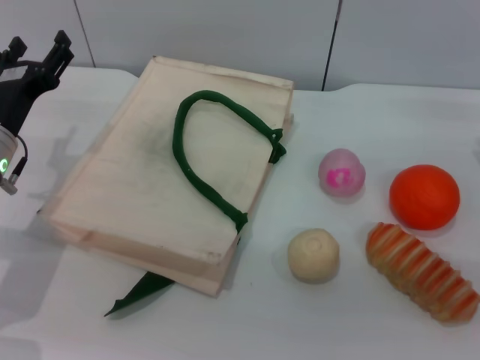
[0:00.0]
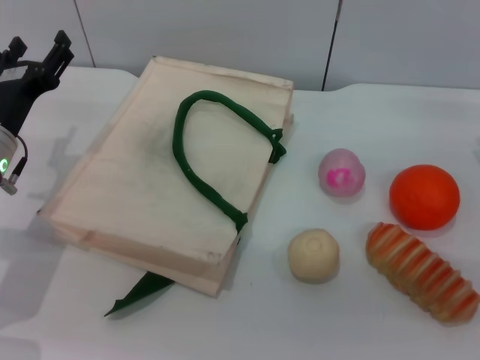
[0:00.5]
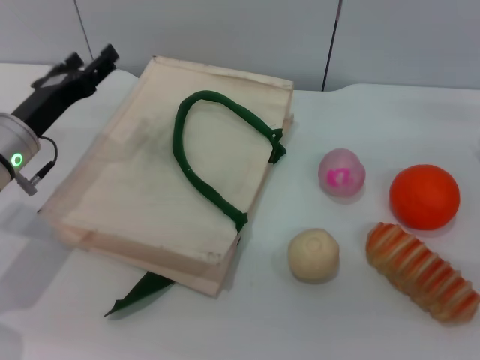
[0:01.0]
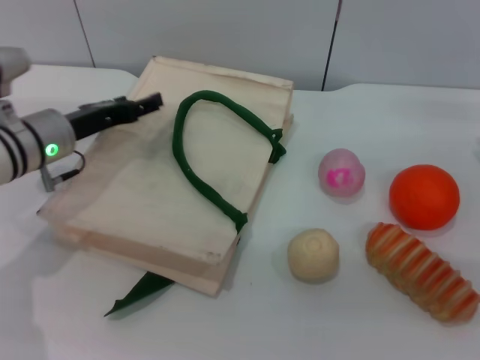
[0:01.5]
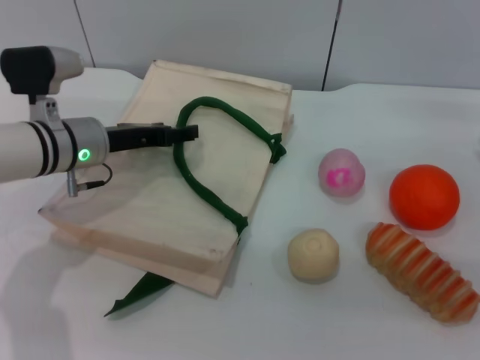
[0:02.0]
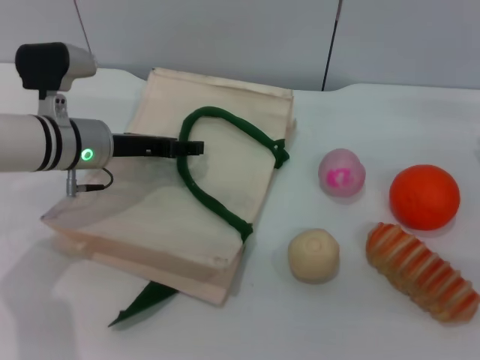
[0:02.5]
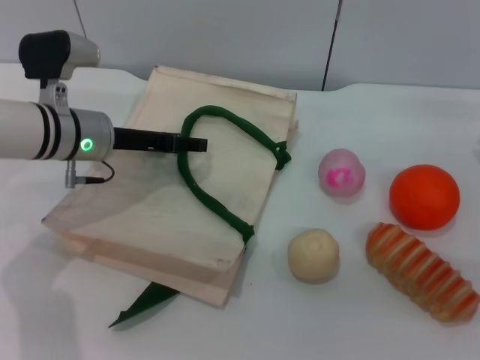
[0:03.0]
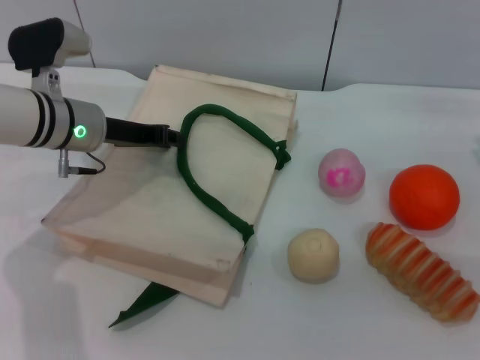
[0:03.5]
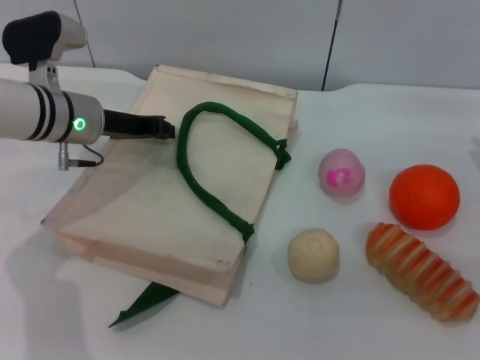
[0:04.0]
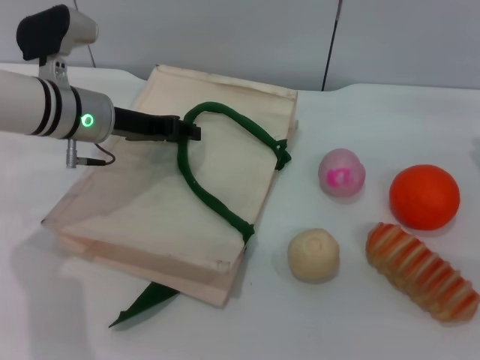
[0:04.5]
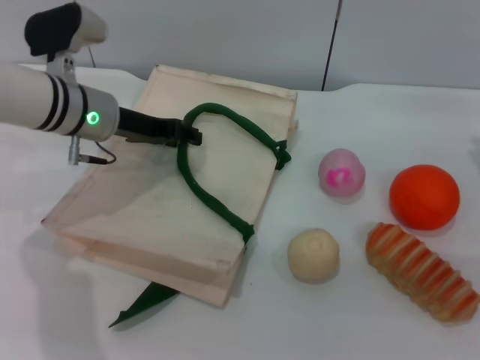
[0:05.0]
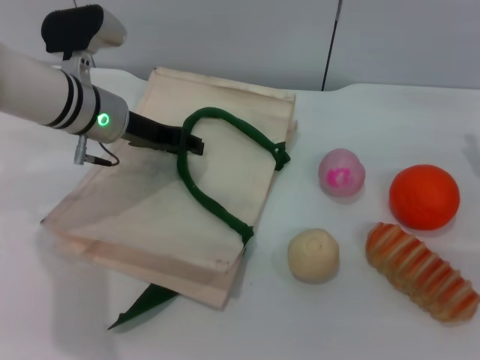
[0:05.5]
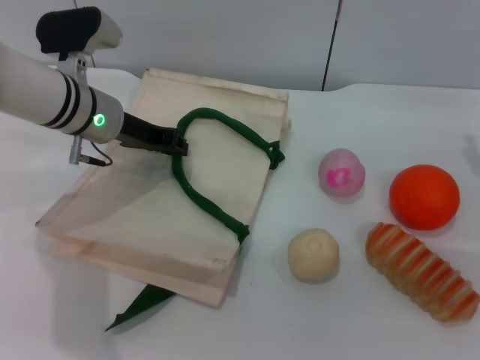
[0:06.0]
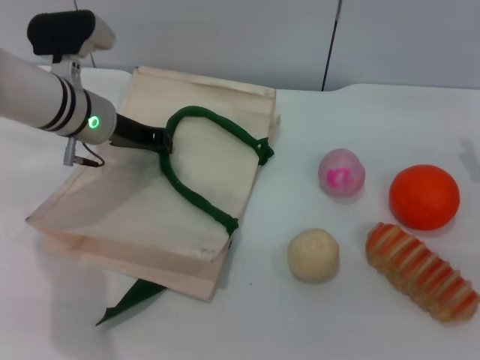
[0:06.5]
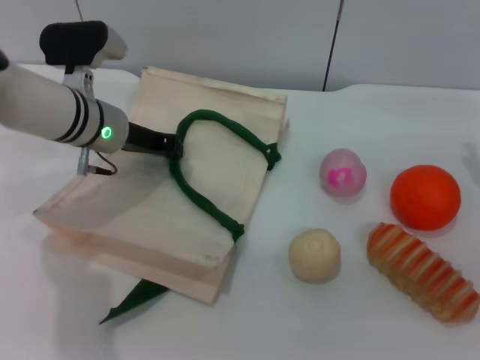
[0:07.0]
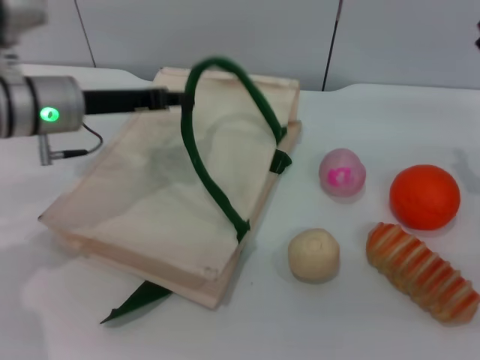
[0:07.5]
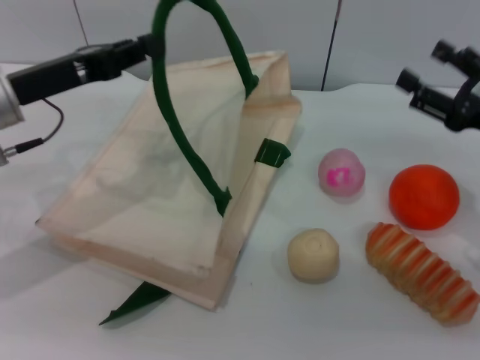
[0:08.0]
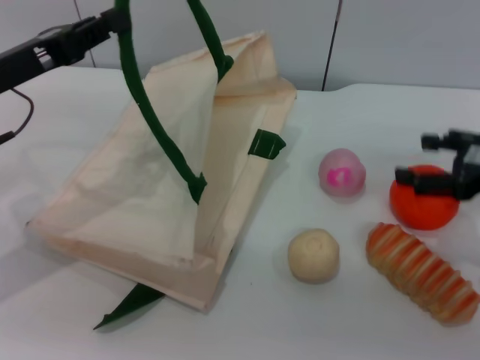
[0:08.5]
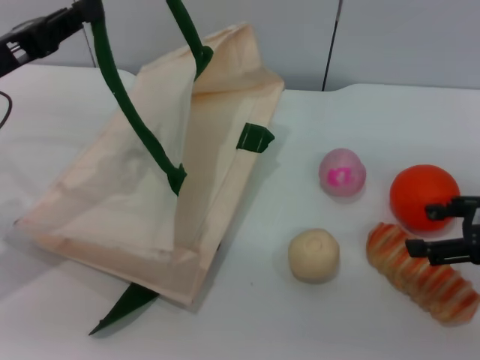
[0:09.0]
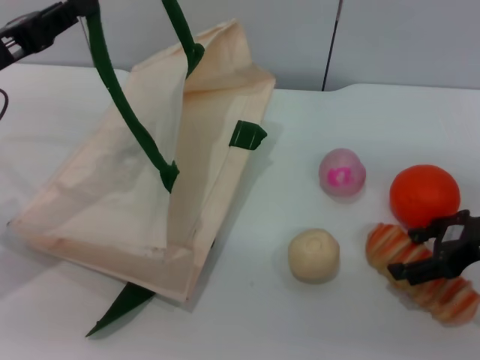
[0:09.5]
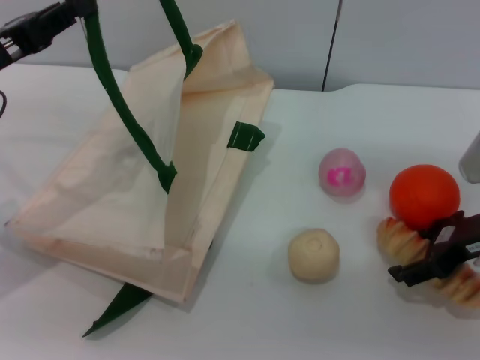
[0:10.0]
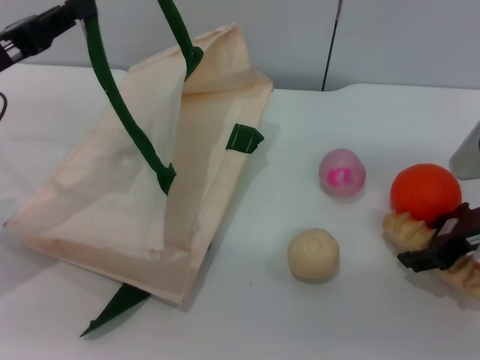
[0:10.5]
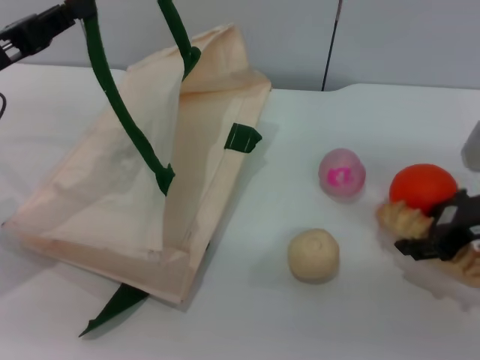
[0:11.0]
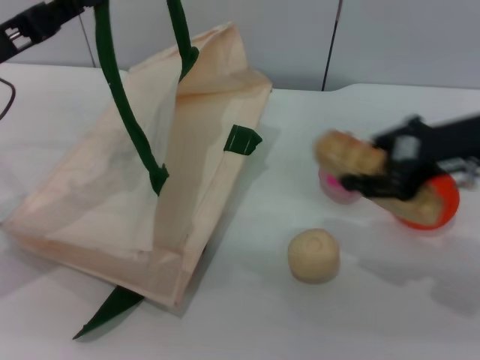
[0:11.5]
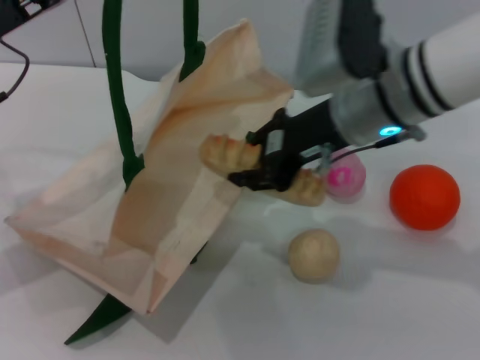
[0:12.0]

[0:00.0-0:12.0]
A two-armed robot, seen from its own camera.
Task of the whole recording: pick up the bread and egg yolk pastry from the table and place it in the white handbag.
Step, 0:00.0 to 0:07.5: Lift the woven bag with the left gripper to open it.
Step, 0:08.0 to 0:11.0: Pick up the bread with the right gripper.
0:00.0 to 0:02.0: The left gripper heads to the right and forward, covering about 10 cm.
0:02.0 to 0:04.0: The left gripper closes its fingers.
0:04.0 to 0:06.0: The grippers move only a little.
0:06.0 to 0:08.0: The left gripper is displaced backward and to the left by some 10 cm, and closes up.
0:10.0 to 0:12.0: The right gripper moves to the left and upward, some 15 cm, and closes up.

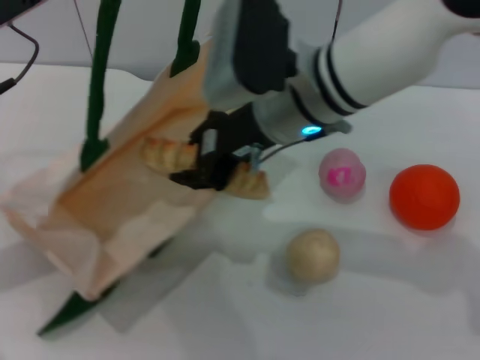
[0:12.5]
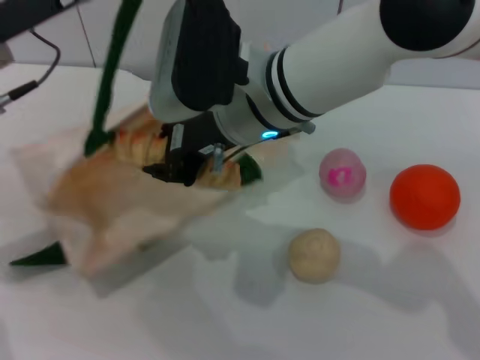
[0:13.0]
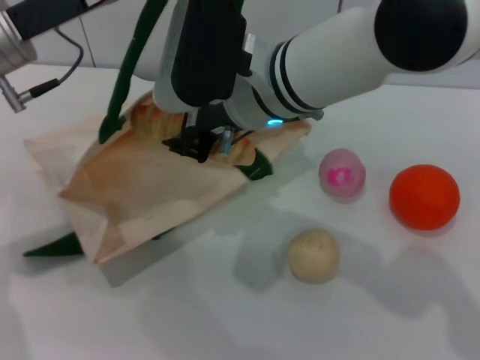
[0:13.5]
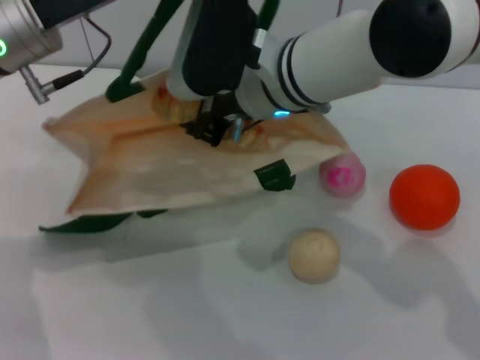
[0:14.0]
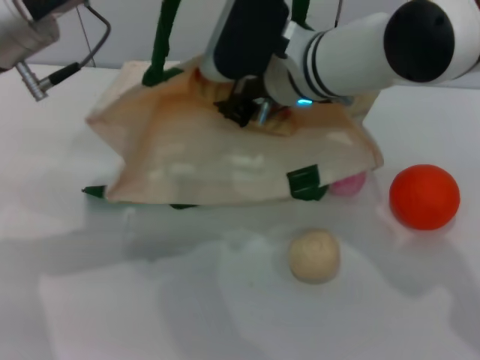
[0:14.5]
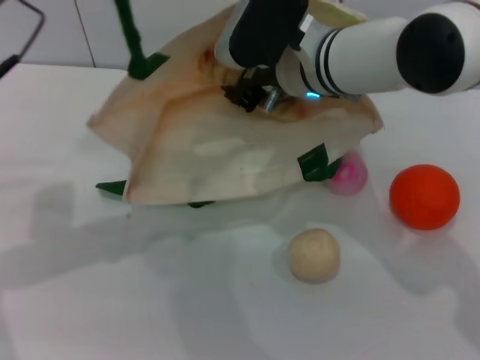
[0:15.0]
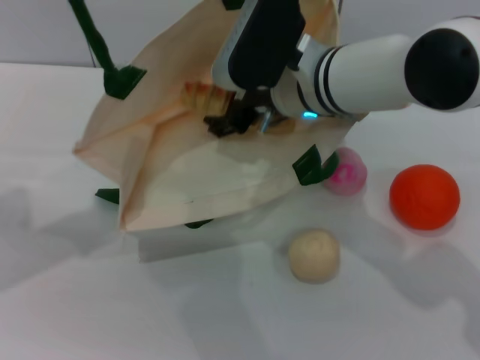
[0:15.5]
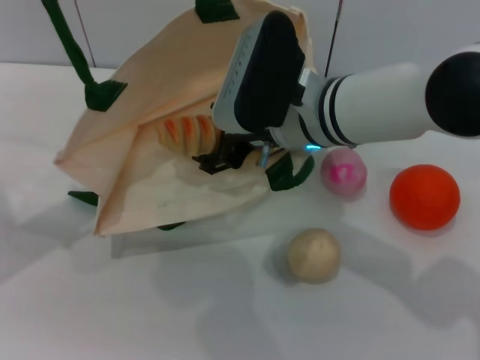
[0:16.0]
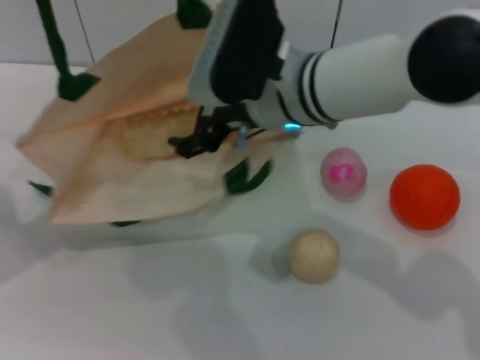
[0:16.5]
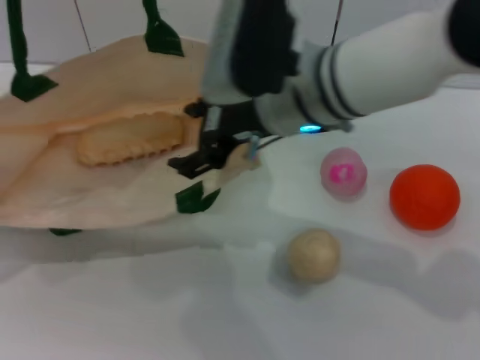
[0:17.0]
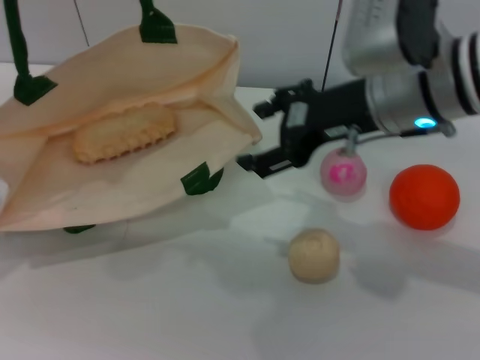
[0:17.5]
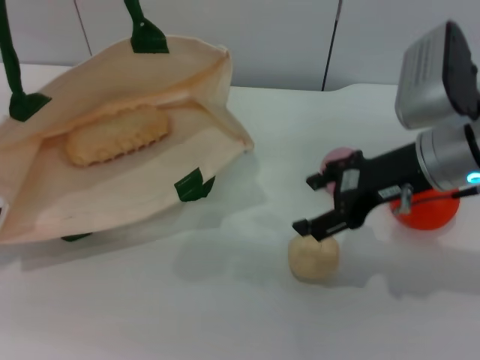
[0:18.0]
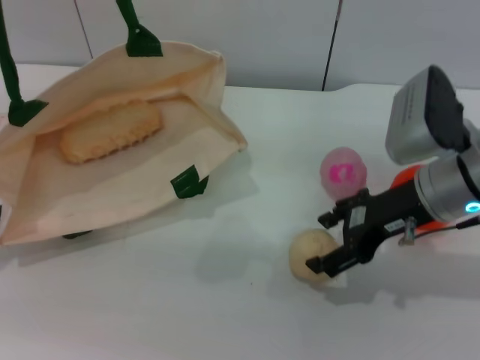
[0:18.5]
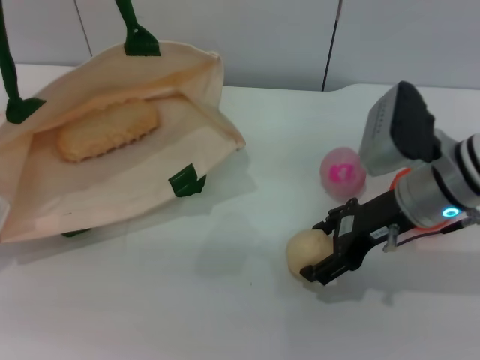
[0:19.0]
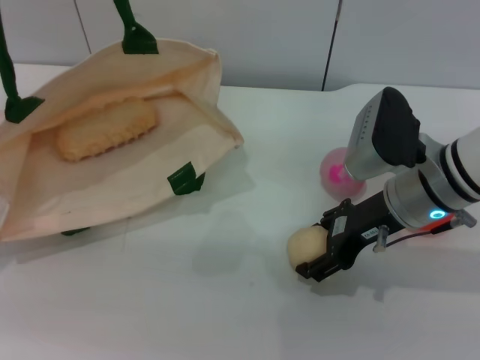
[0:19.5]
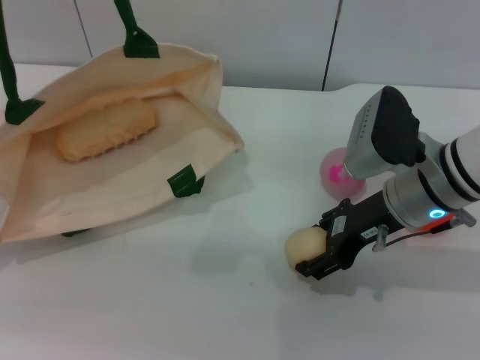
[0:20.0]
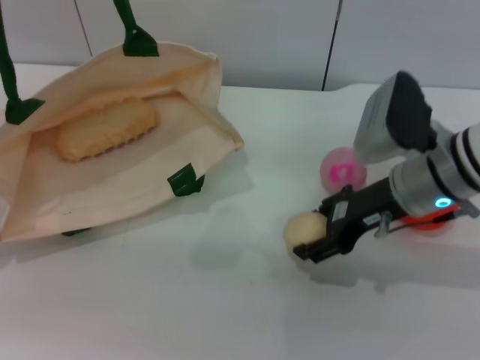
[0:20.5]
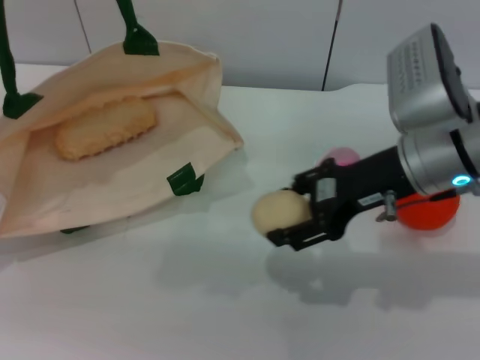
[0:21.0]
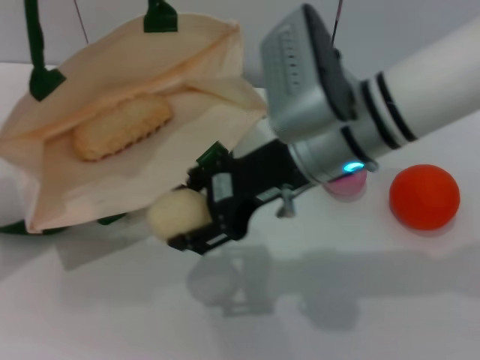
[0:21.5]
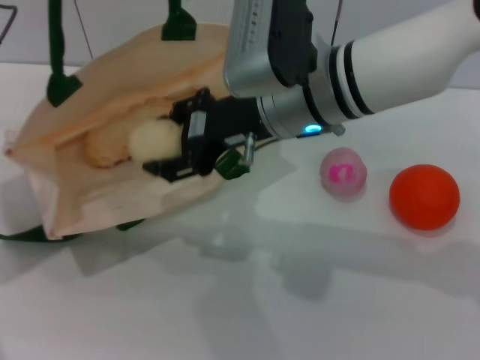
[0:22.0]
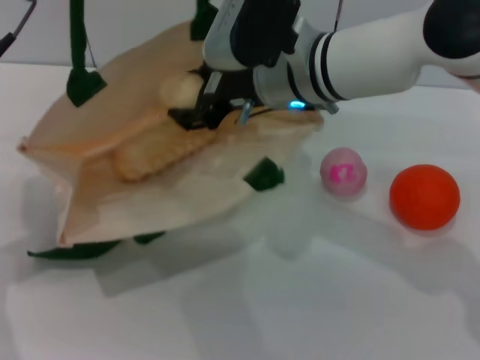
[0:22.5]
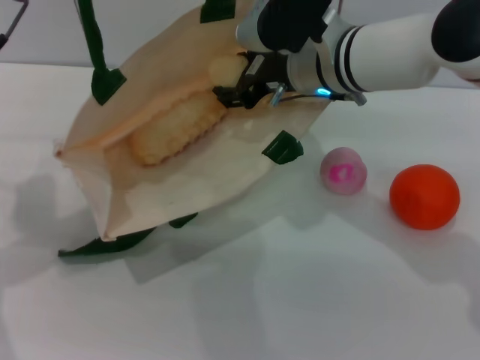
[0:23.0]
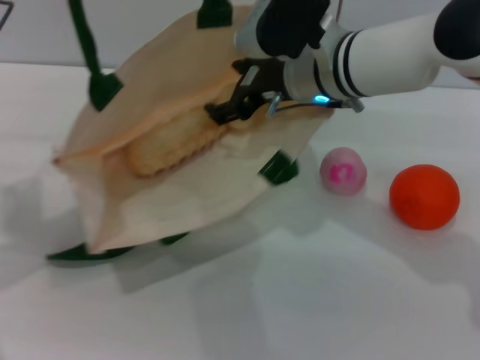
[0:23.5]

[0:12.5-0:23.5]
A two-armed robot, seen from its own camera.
Task of the whole recording: pick up the bread and egg yolk pastry from the table and place it in the white handbag.
Step, 0:12.5 to 0:17.0: Place the bread into the woven bag with the right gripper.
Step, 0:17.5 to 0:20.5: Pick up the egg yolk pastry with the right gripper.
0:12.5 to 0:14.5: The left gripper shifts some 5 cm to the right. Meanwhile the right gripper shifts by roughly 5 cm.
0:14.5 to 0:16.0: The left gripper shifts approximately 10 cm to the left. Meanwhile the right gripper opens.
0:16.0 to 0:18.0: The right gripper shifts about 15 cm to the right.
0:18.0 to 0:20.0: The right gripper travels downward by about 5 cm.
0:20.0 to 0:21.5: The right gripper goes about 10 cm to the left and upward.
0:21.5 to 0:23.5: The right gripper moves forward, roughly 10 cm.

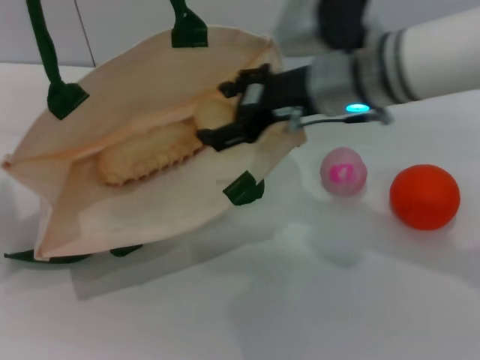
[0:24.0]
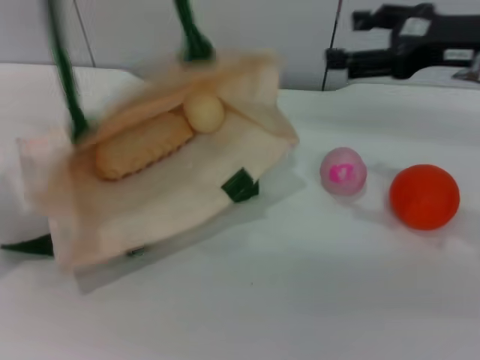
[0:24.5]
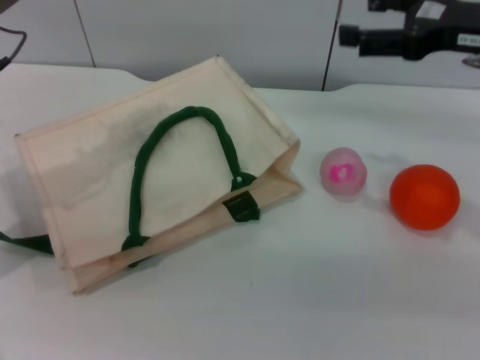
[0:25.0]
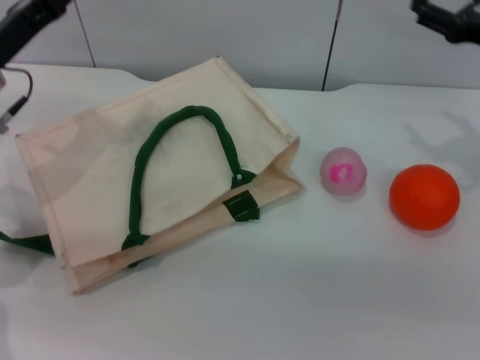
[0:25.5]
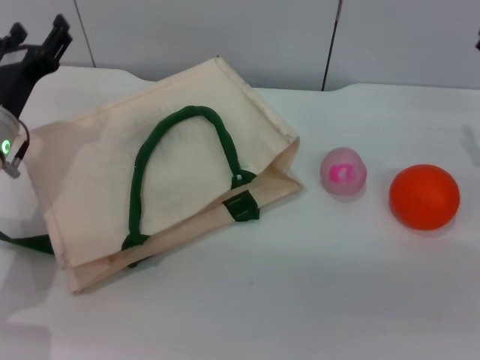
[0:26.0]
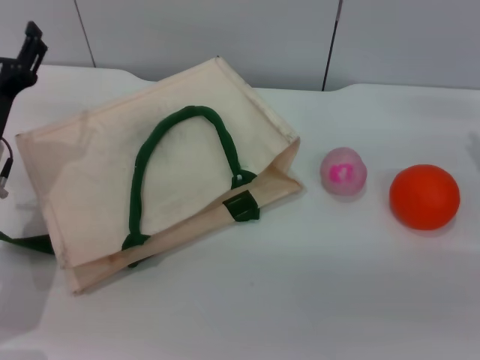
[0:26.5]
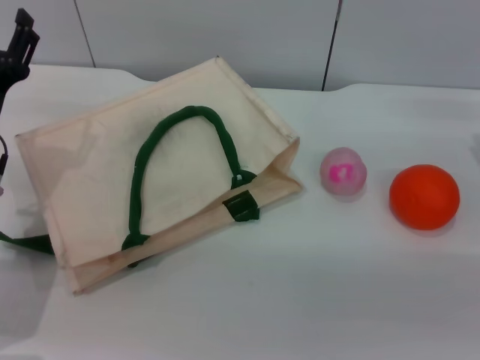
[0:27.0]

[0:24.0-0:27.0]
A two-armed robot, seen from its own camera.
Task of the whole recording: pick up the bread and egg yolk pastry from the table and place it in the white handbag.
Step, 0:24.5 to 0:25.0: Lower the woven bag with the left gripper to close it.
0:24.0 to 0:25.5: The left gripper moves downward, approximately 5 cm, and opens its fingers. The right gripper shifts approximately 20 cm to the right.
0:25.5 to 0:27.0: The left gripper goes some 10 cm backward and downward, while the right gripper shifts about 10 cm downward and backward.
